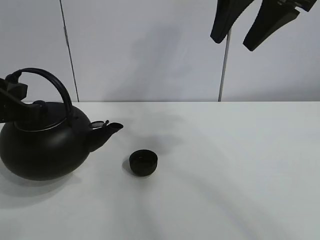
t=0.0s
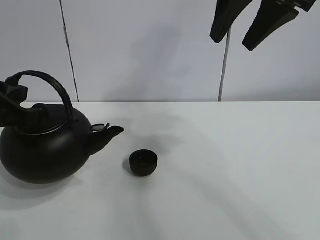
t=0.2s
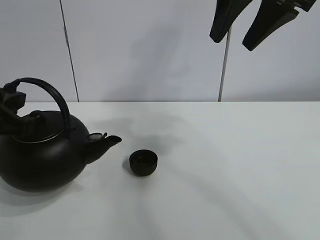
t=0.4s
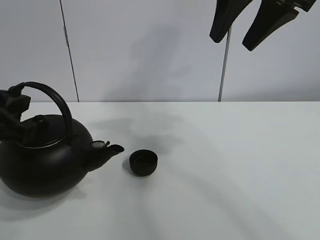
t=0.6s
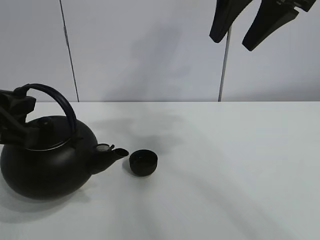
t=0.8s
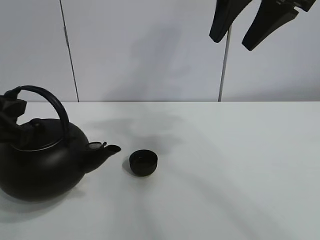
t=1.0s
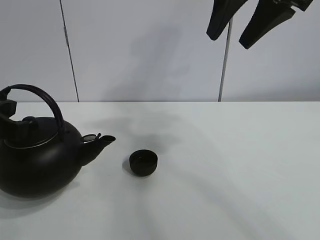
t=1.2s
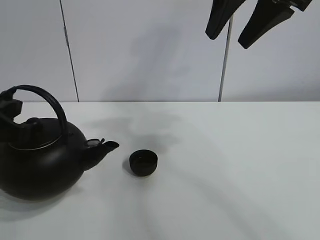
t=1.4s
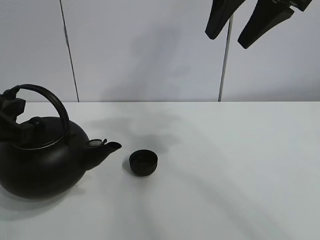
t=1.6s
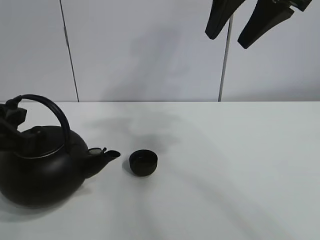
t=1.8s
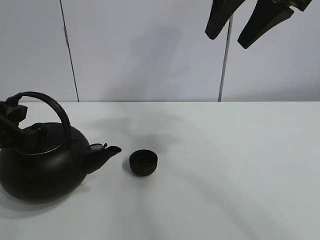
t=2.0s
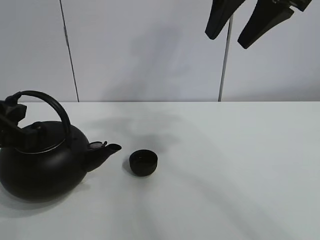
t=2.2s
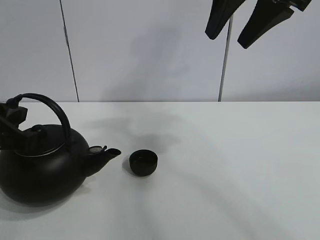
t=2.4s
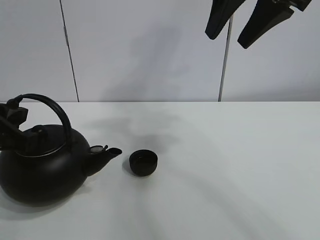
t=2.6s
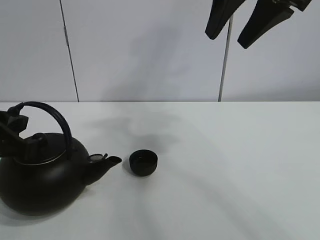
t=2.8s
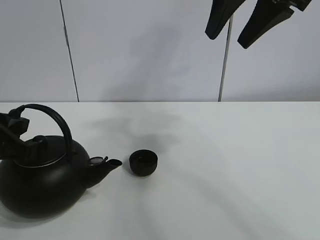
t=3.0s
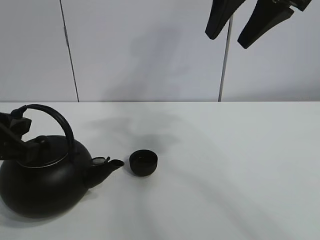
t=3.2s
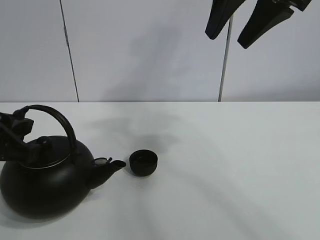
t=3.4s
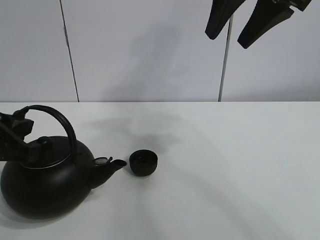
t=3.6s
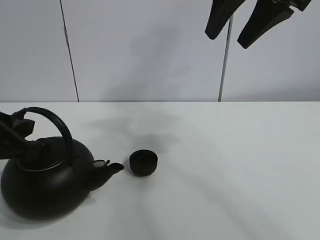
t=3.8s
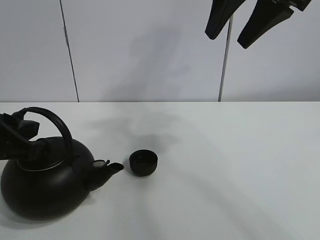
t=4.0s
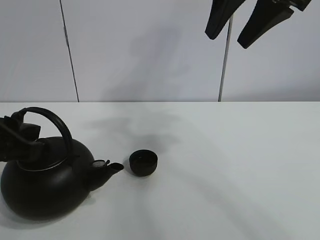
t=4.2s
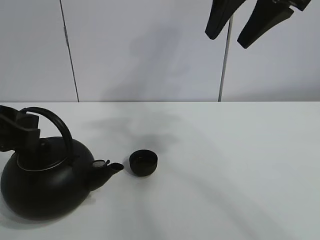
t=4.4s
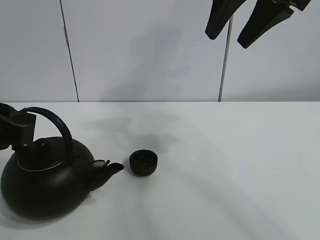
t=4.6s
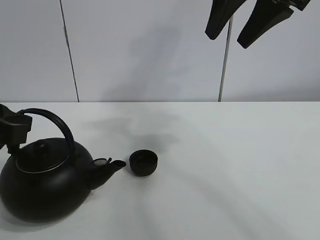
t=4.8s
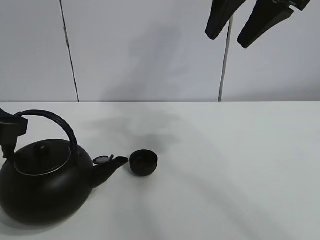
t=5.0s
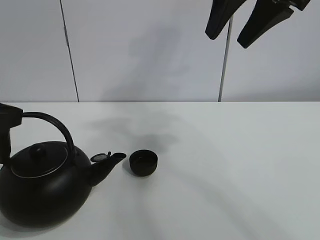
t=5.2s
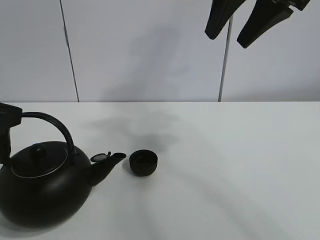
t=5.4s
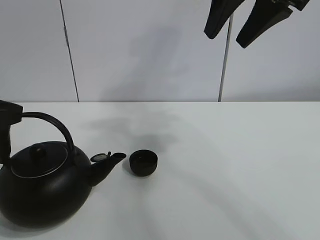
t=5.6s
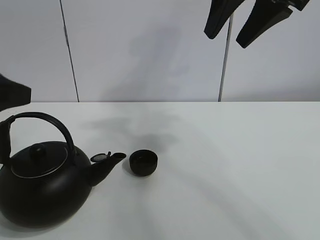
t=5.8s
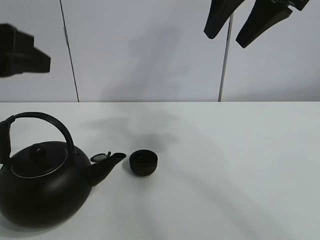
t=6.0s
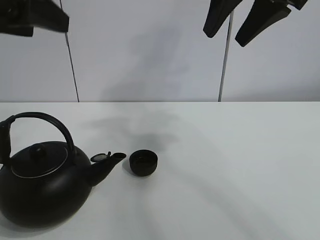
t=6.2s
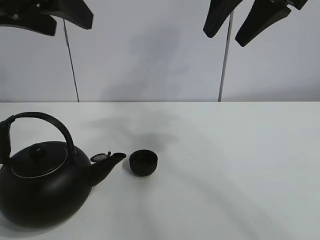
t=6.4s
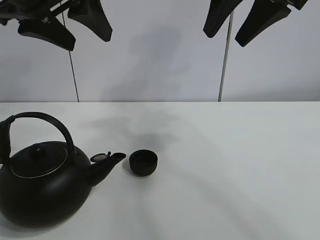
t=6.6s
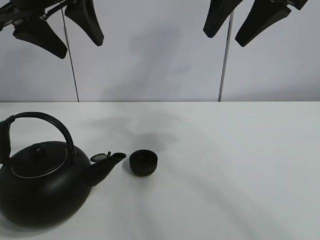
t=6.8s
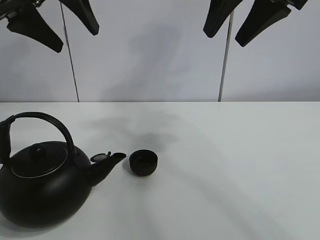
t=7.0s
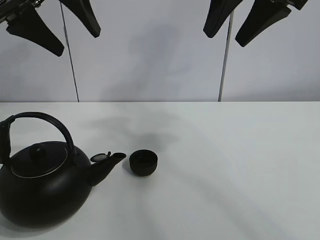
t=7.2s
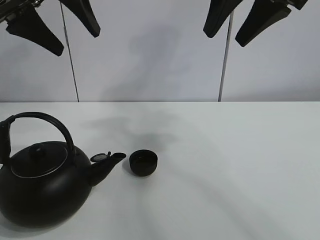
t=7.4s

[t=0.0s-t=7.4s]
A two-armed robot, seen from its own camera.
Task of the whole recording: pour tea into the teacup.
t=0.0s to t=3.0s: The grippers move only a little.
t=3.0s to t=4.4s: The left gripper opens up.
t=4.4s to t=6.0s: The left gripper moves upward, roughly 10 cm.
t=6.0s to t=7.4s: The left gripper travels forward and upward by some 15 cm, and opens.

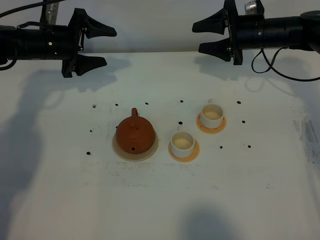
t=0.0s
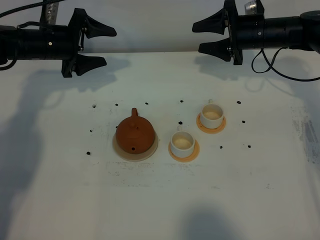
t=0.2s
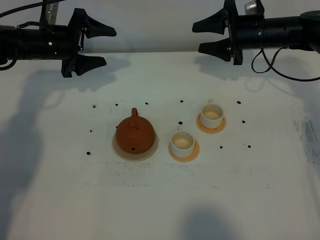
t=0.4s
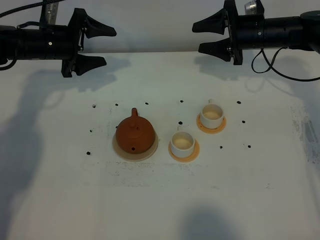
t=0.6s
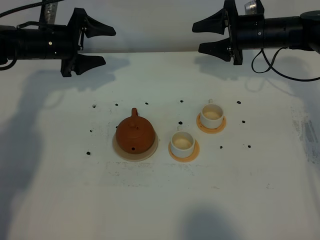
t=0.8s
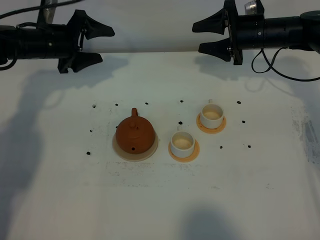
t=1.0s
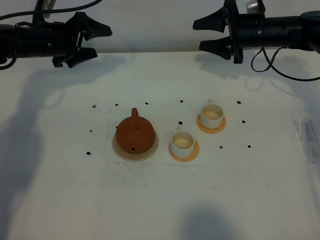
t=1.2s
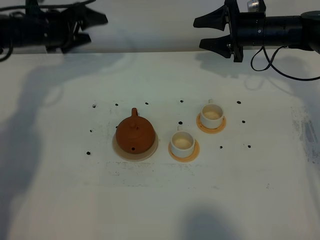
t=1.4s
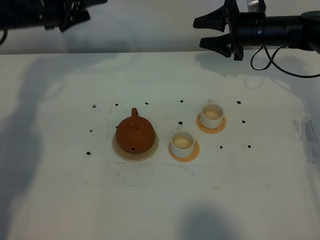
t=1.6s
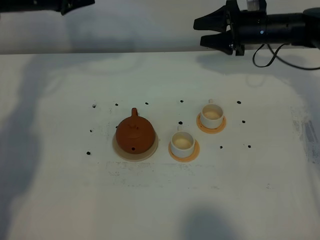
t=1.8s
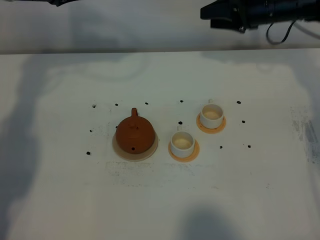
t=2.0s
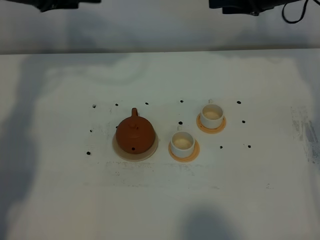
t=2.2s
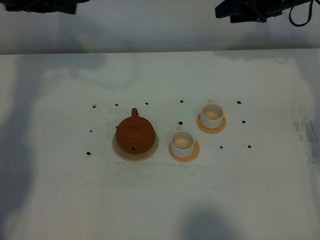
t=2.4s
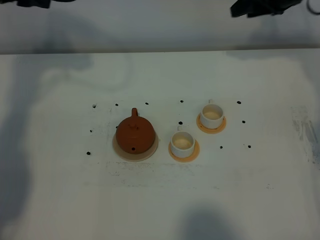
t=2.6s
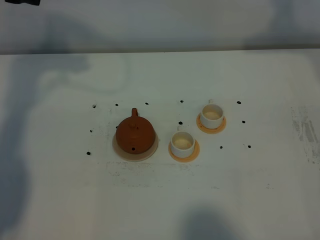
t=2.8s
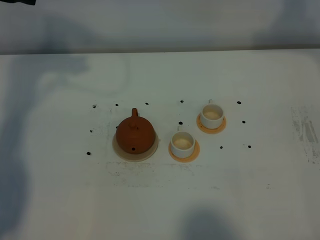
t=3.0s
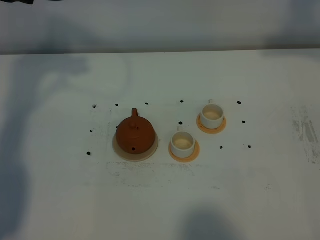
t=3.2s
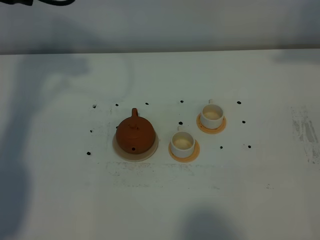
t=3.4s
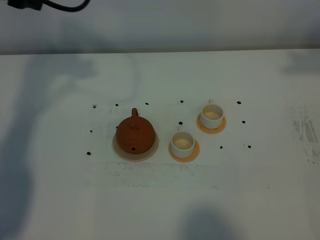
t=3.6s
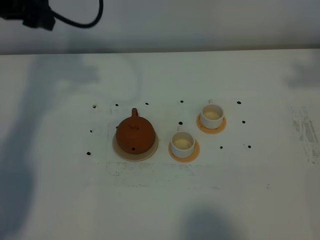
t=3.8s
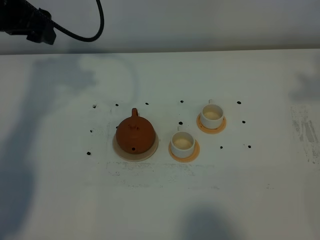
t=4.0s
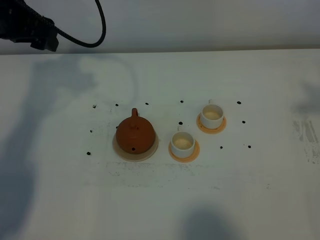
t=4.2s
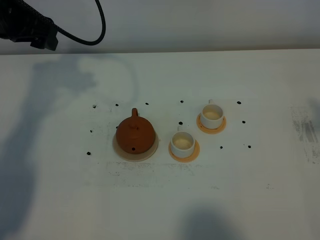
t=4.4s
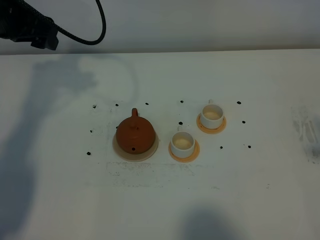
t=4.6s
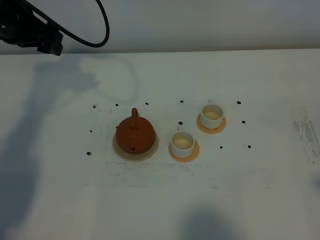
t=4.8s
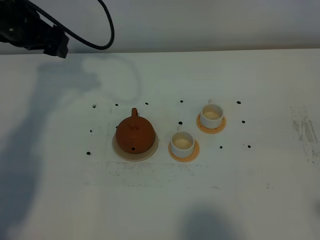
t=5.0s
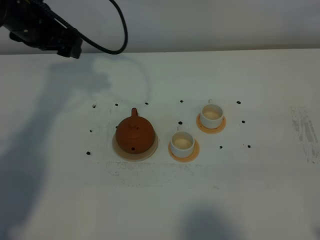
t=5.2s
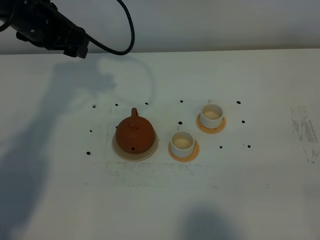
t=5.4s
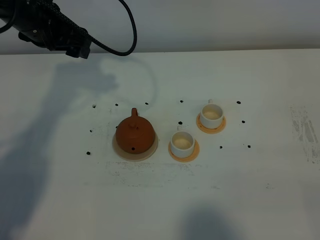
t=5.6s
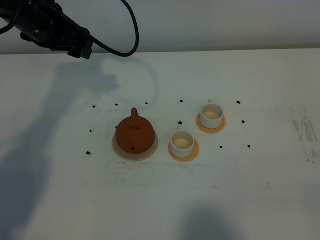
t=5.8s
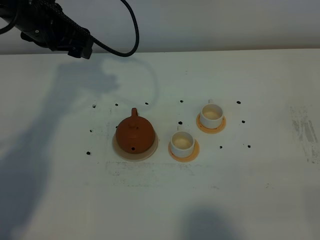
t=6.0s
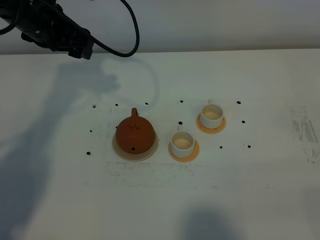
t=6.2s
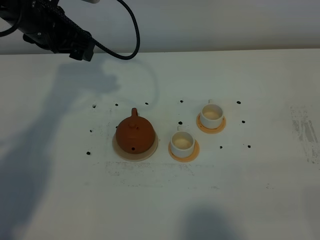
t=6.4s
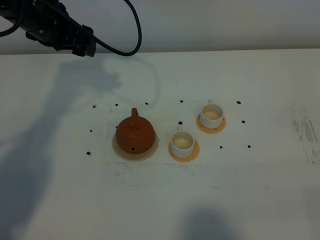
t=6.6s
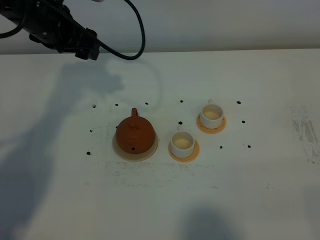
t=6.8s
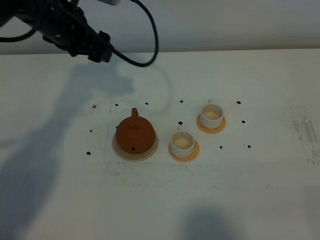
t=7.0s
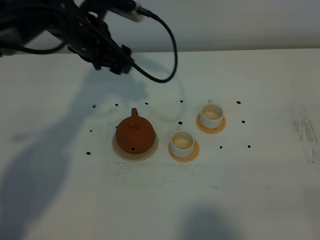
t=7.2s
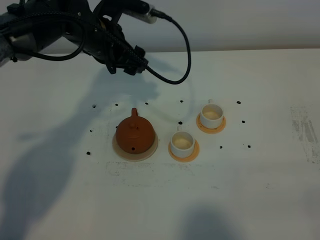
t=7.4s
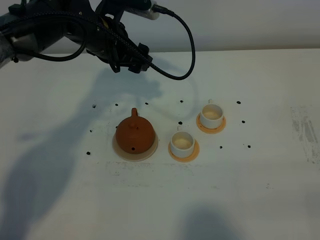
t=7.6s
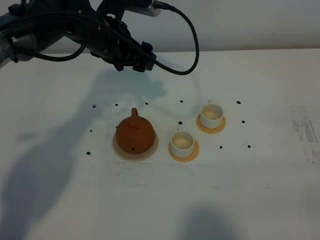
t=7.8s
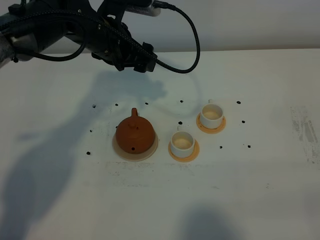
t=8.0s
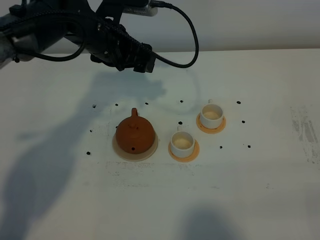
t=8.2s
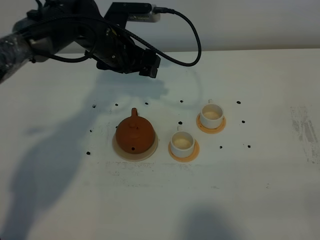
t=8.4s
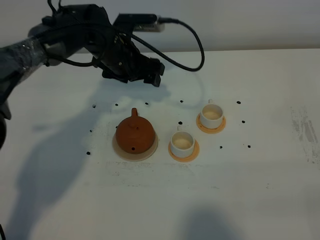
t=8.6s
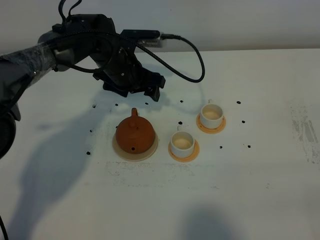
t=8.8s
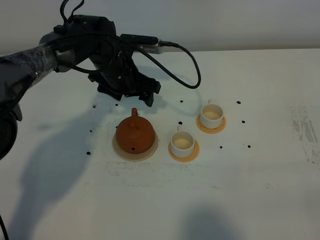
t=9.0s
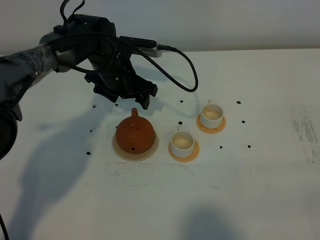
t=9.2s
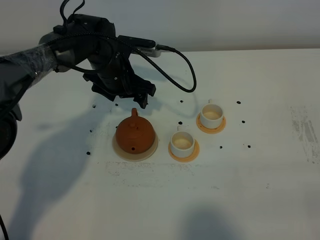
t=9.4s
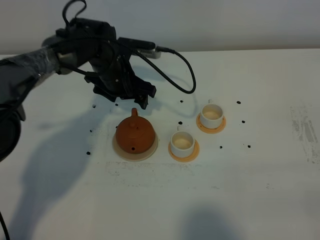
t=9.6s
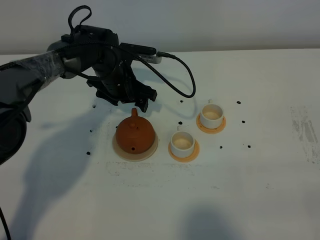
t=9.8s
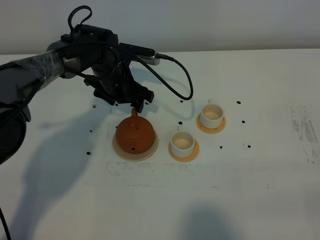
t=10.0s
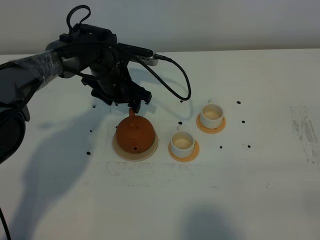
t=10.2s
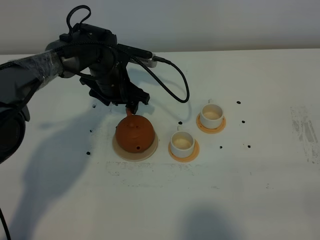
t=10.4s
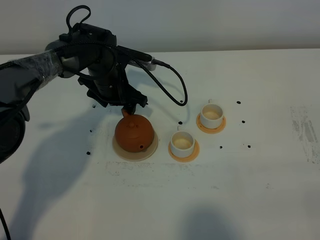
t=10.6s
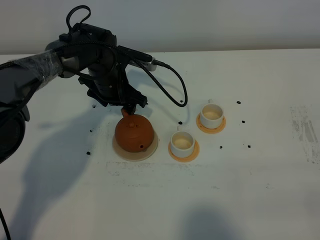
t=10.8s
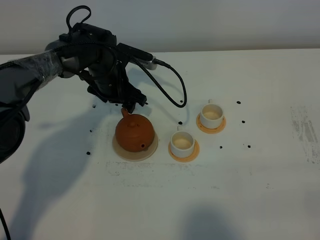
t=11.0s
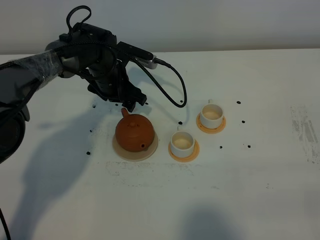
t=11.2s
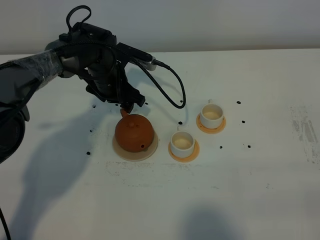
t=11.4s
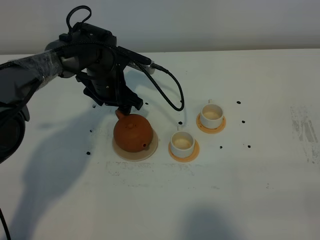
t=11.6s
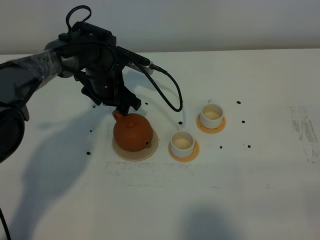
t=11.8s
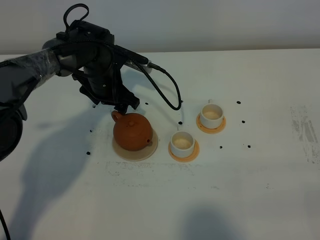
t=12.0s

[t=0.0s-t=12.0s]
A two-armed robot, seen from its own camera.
Task of the whole recording: grasp the brown teapot and pour the tea into the two white teacups one by one, put the brown teapot back in its original place.
t=0.0s to t=1.6s: The left gripper shifts about 5 cm upward.
t=1.6s to t=3.0s: The right gripper moves upward, about 25 cm, and closes up. Meanwhile the left gripper goes about 20 cm upward and backward.
t=3.0s to t=4.4s: The left gripper goes some 10 cm downward.
t=4.4s to t=6.0s: The right gripper travels downward and backward by roughly 25 cm, and closes its fingers, while the left gripper goes some 5 cm to the right.
t=6.0s to t=7.6s: The left gripper is displaced to the right by some 10 cm.
t=7.6s to t=9.0s: The left gripper goes some 10 cm downward.
t=9.0s to t=12.0s: The grippers move only a little.

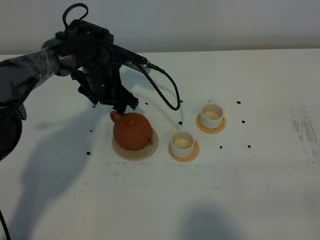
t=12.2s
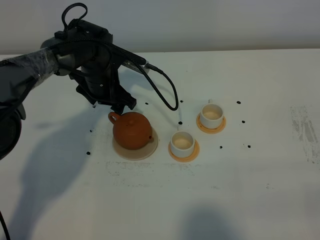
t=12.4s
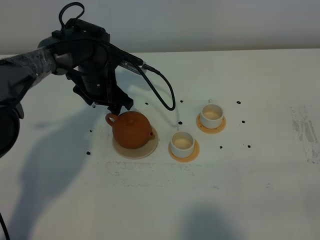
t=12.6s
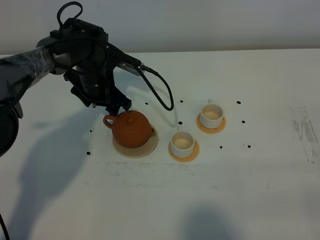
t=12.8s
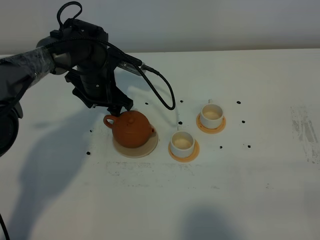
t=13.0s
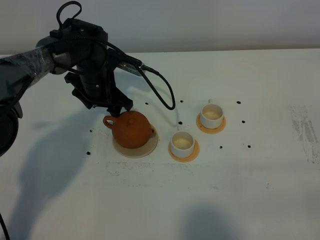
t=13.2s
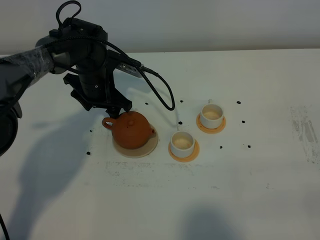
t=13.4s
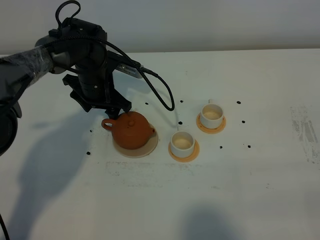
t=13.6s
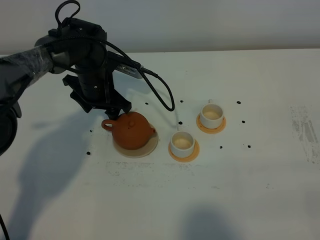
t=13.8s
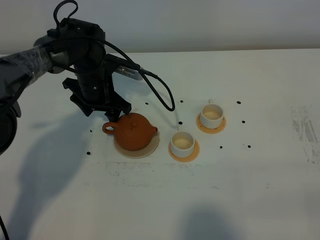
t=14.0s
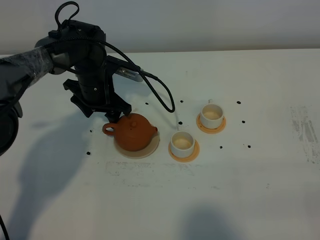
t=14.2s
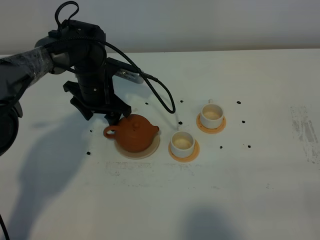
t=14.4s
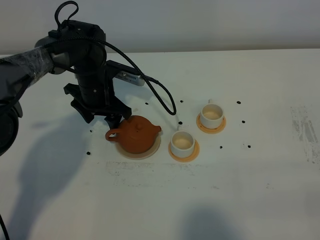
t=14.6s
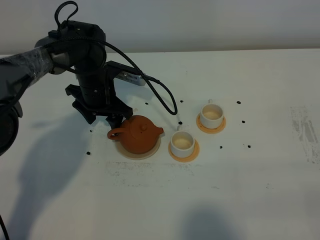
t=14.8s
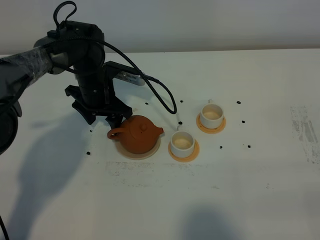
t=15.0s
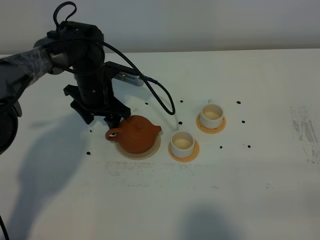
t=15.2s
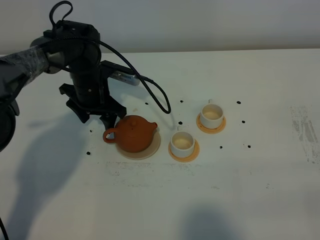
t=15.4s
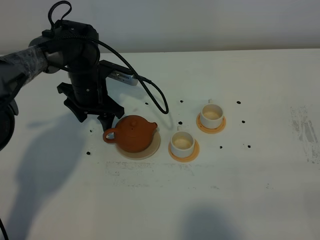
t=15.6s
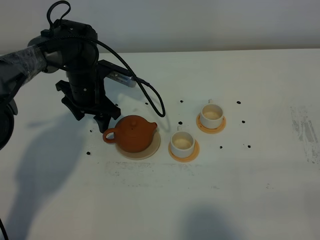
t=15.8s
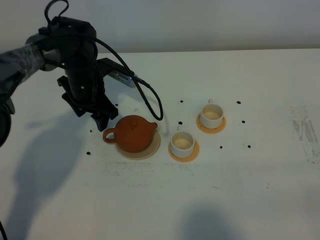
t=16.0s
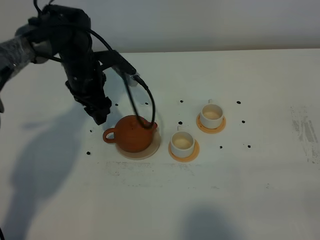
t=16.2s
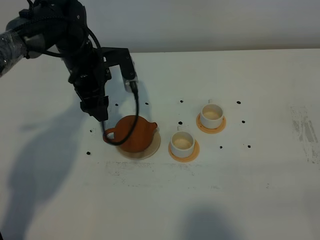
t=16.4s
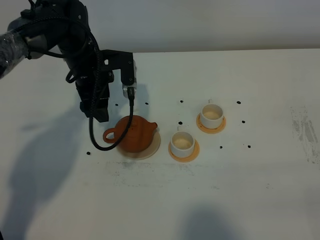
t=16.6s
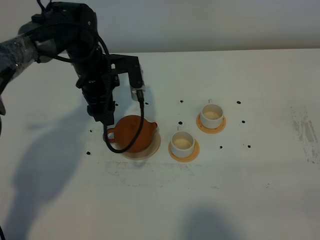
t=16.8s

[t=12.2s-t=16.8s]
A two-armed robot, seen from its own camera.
Task of the whole recording: grasp the brown teapot and pour the tea into the two white teacups one by one, put the brown teapot back in its original place.
t=12.2s to t=15.2s: There are only small adjustments of the grippers.
t=15.2s to t=16.8s: The left gripper moves about 5 cm.
